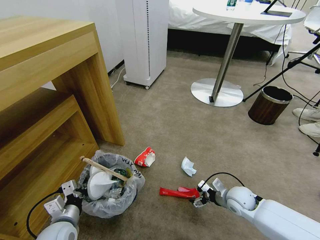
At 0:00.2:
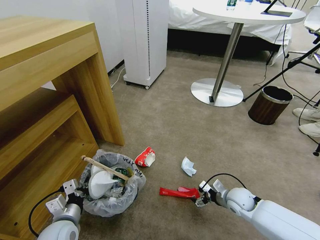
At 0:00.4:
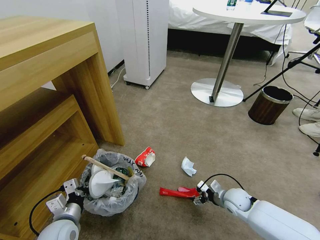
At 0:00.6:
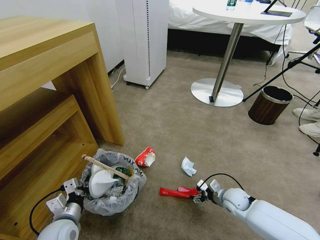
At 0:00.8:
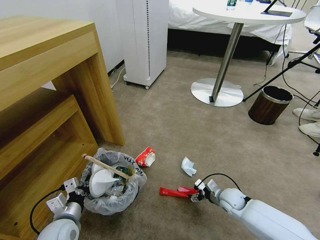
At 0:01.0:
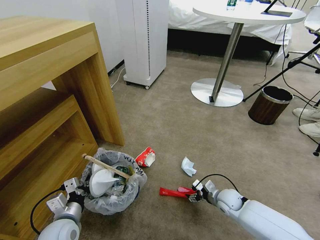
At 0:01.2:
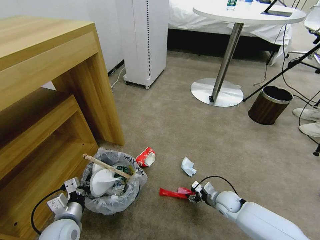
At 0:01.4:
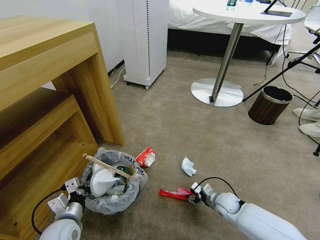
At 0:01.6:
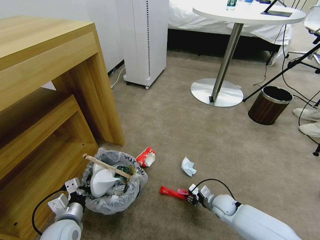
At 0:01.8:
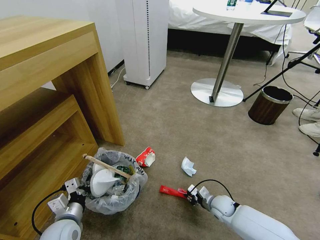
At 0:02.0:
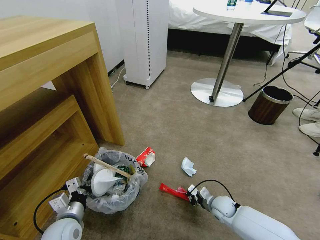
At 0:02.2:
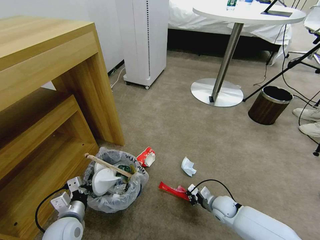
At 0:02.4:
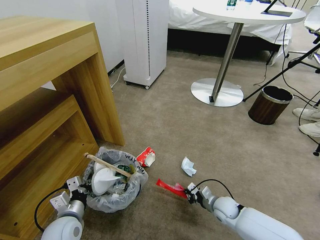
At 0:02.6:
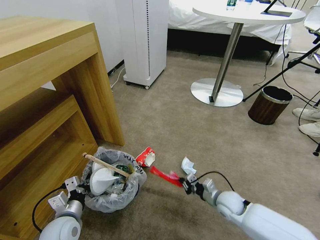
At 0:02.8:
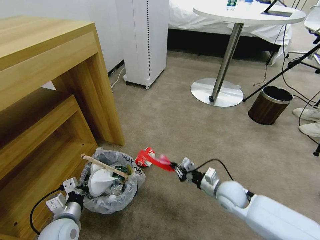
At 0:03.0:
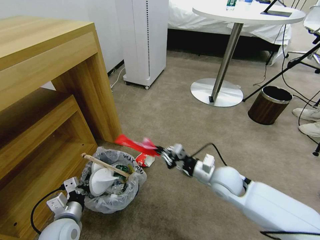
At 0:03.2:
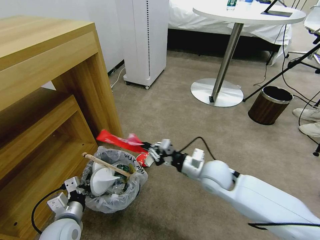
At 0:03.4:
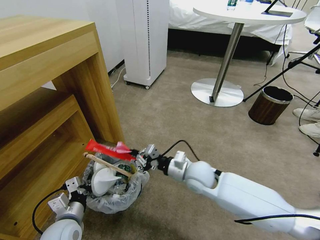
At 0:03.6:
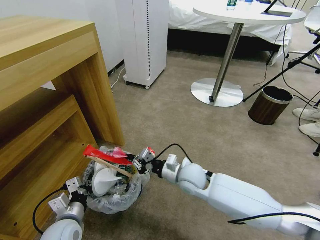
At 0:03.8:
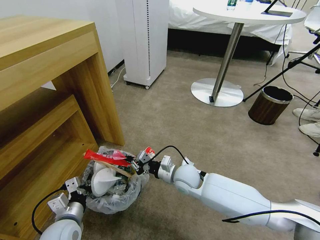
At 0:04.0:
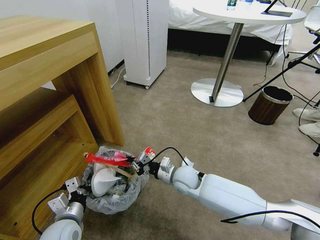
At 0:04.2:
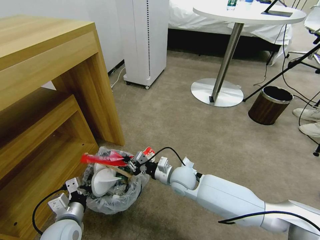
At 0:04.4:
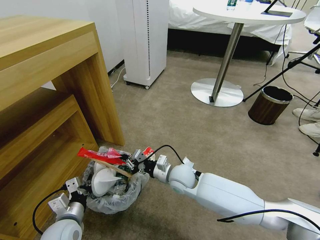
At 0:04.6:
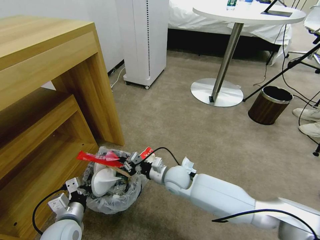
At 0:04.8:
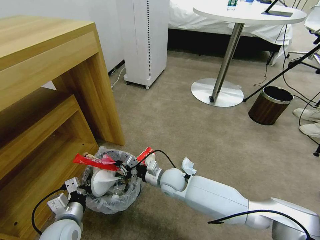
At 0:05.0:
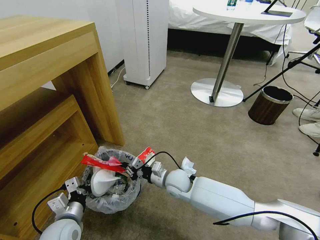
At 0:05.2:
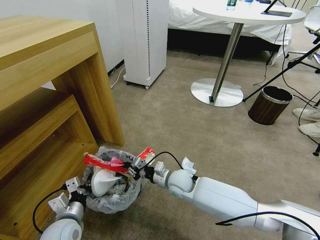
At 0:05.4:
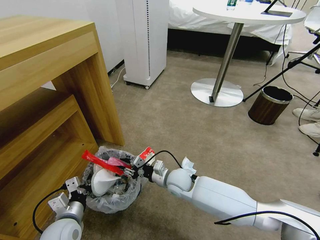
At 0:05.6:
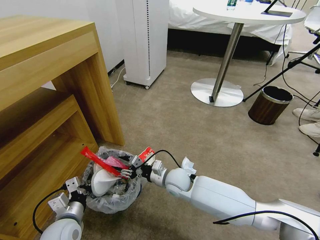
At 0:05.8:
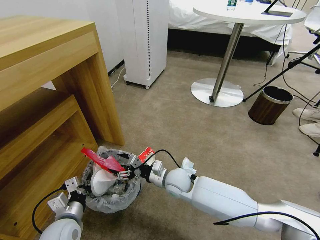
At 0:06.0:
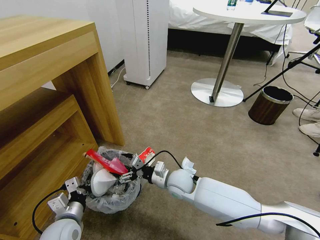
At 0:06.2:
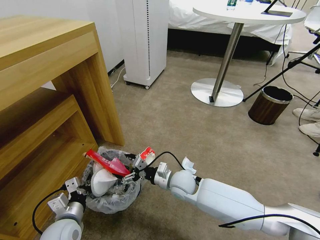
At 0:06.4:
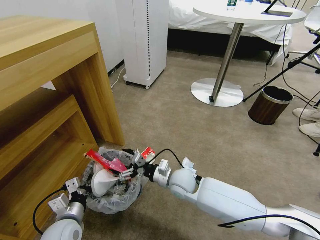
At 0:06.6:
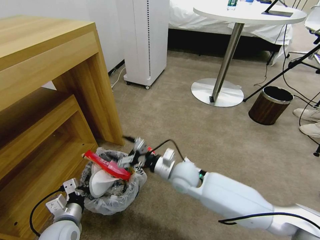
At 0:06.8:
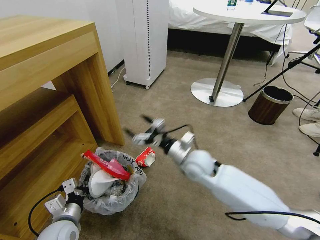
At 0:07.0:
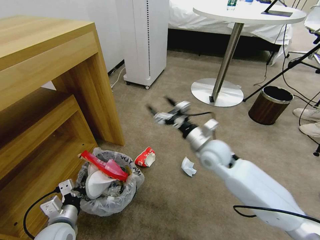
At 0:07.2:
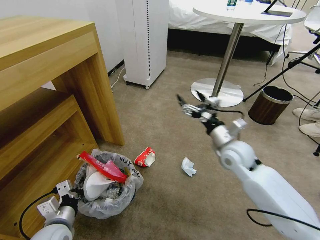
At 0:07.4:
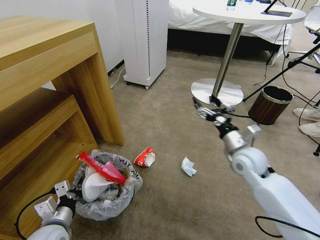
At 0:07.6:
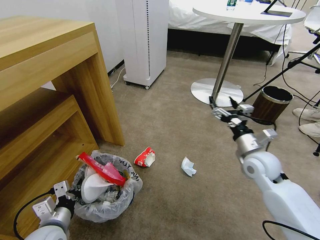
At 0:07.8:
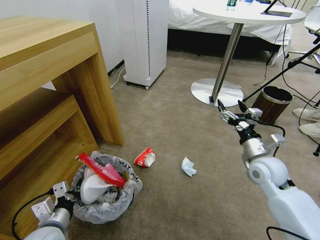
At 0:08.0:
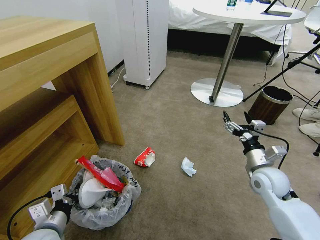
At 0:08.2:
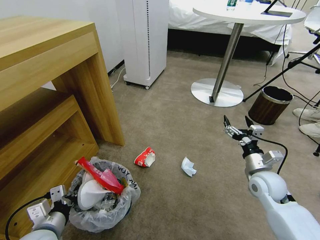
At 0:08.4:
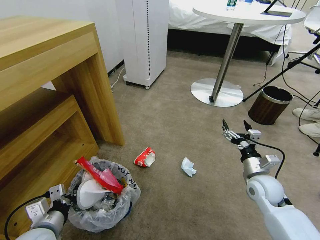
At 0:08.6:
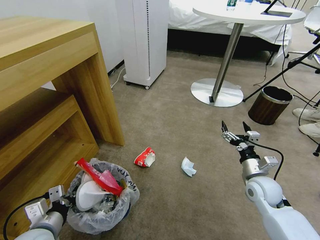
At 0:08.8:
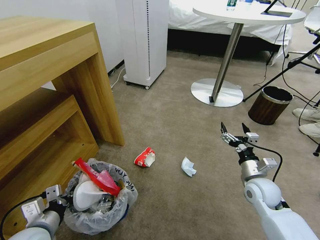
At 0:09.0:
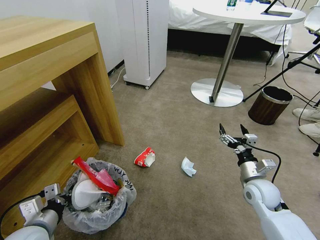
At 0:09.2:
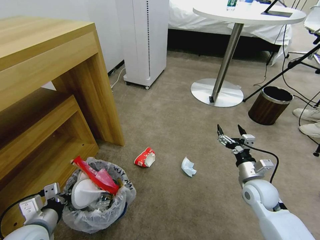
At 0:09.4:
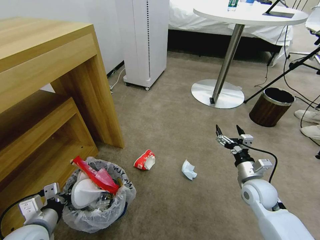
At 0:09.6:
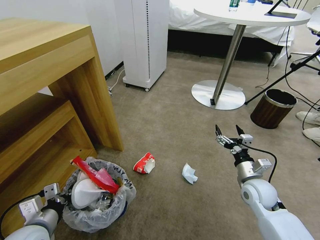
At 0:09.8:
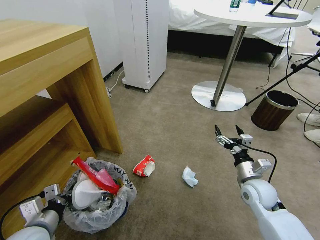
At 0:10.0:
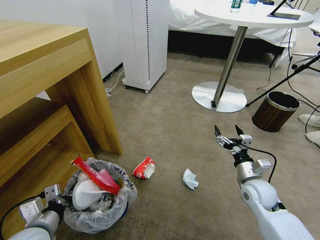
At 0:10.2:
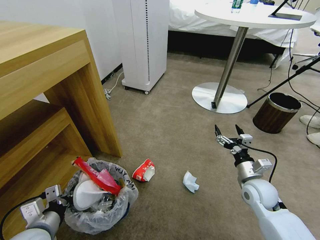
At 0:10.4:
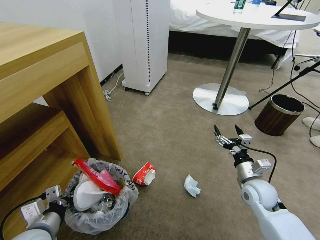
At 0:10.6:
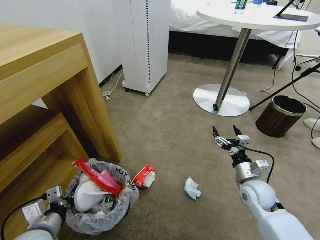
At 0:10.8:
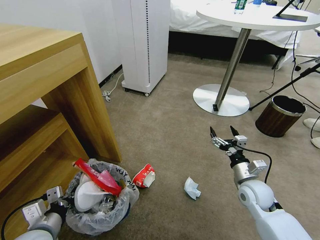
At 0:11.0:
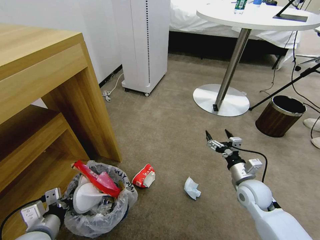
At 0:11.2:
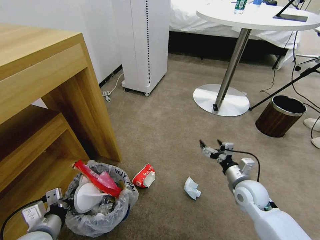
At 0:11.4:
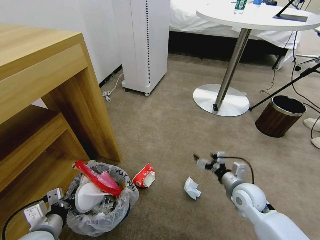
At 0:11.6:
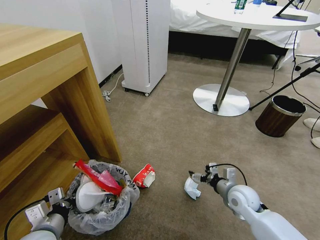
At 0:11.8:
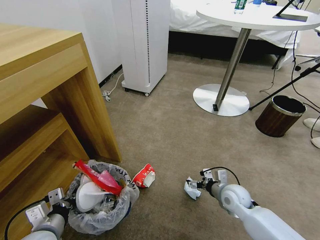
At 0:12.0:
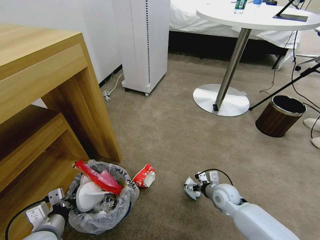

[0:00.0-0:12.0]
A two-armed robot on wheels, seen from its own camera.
Task of the whole recording: Pick up the trash bin and place the garbage on the floor into it.
0:00.0 to 0:01.6: The right gripper heads downward, covering about 10 cm, and closes its fingers.
0:01.6 to 0:03.0: The right gripper travels upward by about 20 cm, and closes.
0:03.0 to 0:04.4: The right gripper is displaced to the left by about 15 cm.
0:04.4 to 0:06.0: The right gripper opens.
0:06.0 to 0:07.6: The right gripper moves to the right and upward, about 25 cm.
0:07.6 to 0:09.0: The right gripper shifts some 10 cm downward and backward.
0:10.4 to 0:12.0: The right gripper heads downward and to the left, covering some 10 cm.

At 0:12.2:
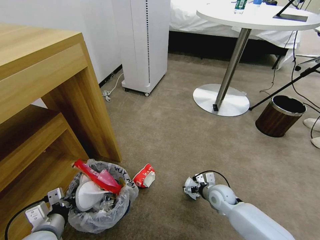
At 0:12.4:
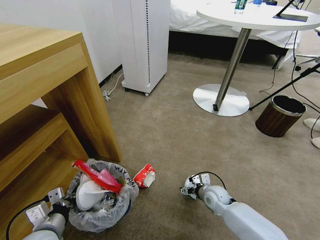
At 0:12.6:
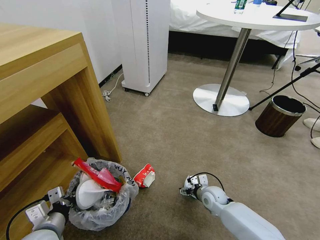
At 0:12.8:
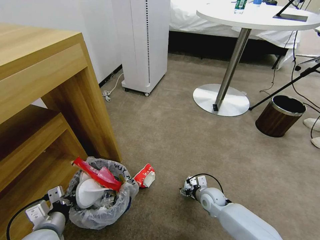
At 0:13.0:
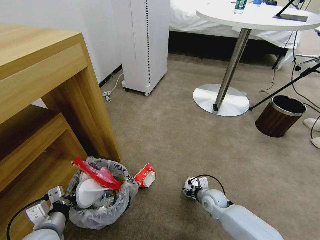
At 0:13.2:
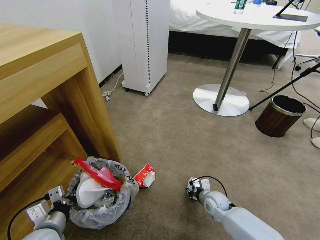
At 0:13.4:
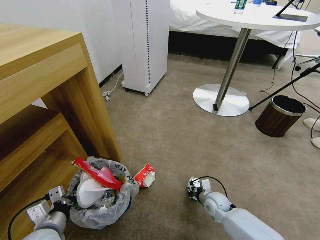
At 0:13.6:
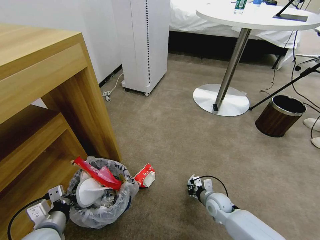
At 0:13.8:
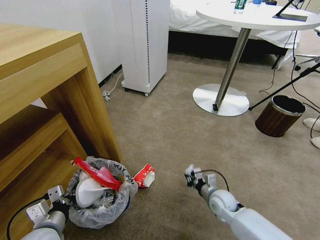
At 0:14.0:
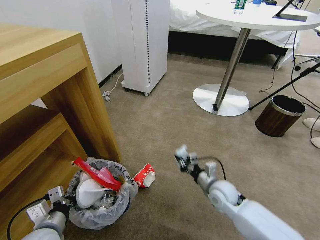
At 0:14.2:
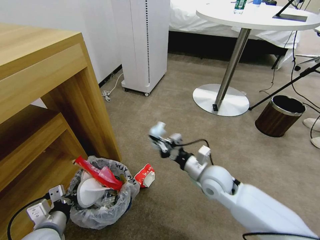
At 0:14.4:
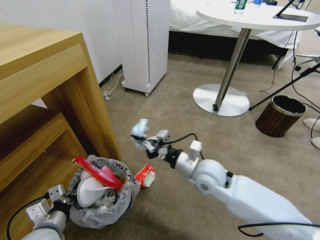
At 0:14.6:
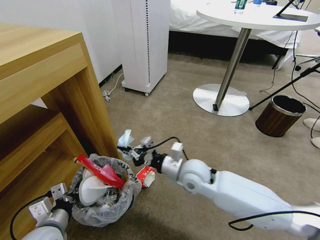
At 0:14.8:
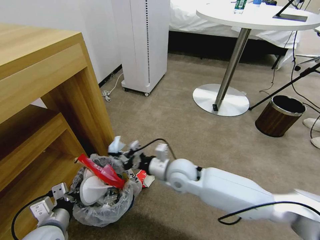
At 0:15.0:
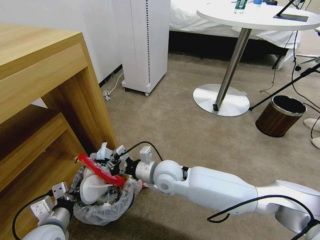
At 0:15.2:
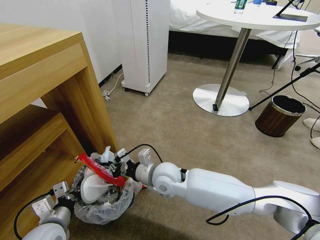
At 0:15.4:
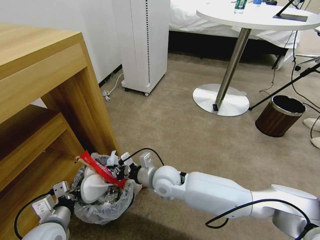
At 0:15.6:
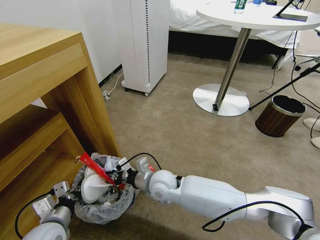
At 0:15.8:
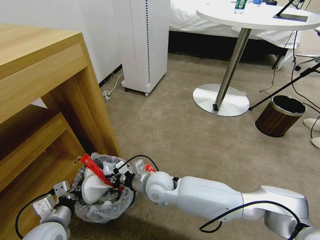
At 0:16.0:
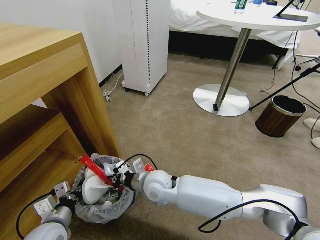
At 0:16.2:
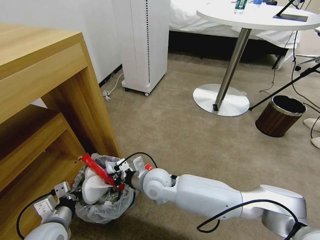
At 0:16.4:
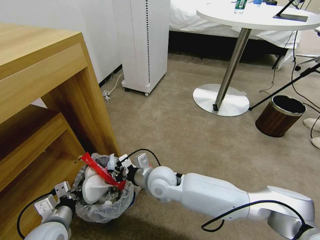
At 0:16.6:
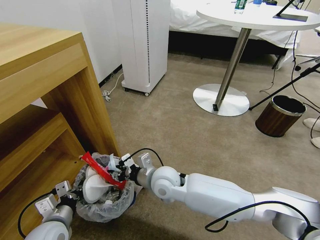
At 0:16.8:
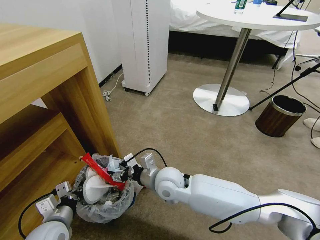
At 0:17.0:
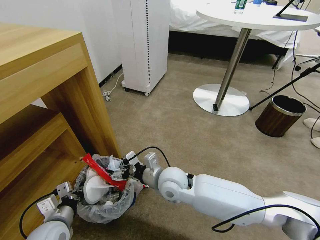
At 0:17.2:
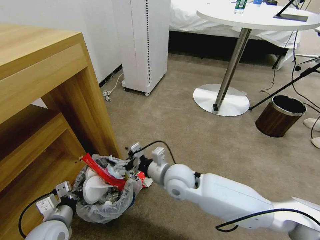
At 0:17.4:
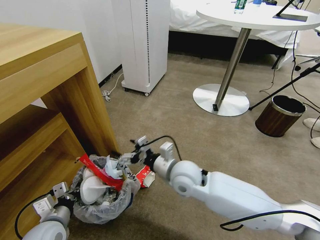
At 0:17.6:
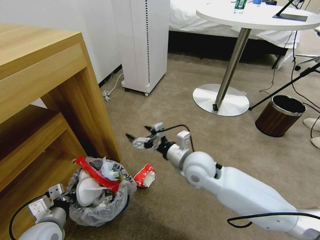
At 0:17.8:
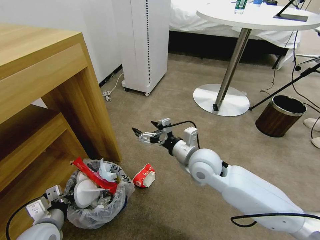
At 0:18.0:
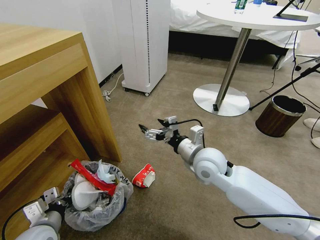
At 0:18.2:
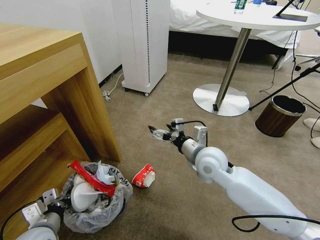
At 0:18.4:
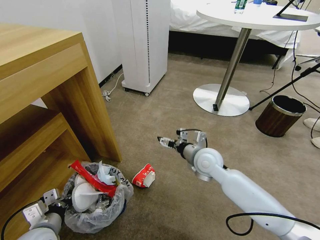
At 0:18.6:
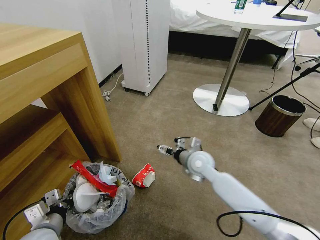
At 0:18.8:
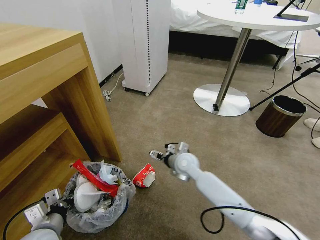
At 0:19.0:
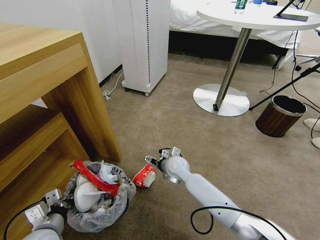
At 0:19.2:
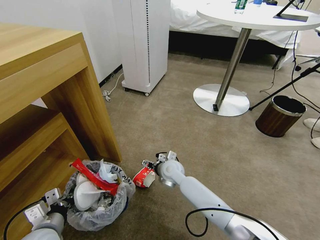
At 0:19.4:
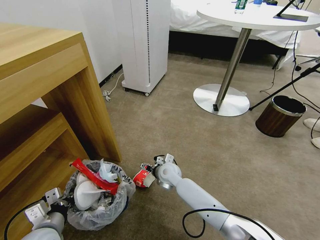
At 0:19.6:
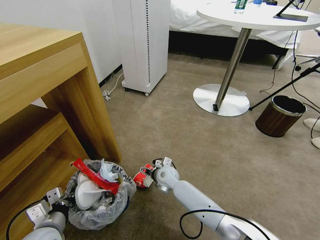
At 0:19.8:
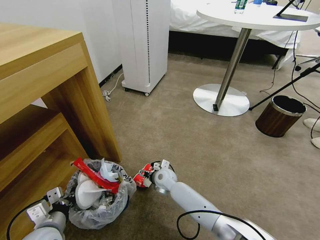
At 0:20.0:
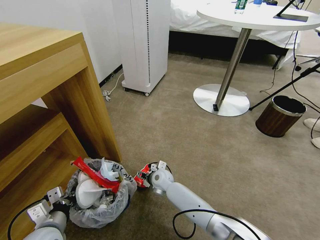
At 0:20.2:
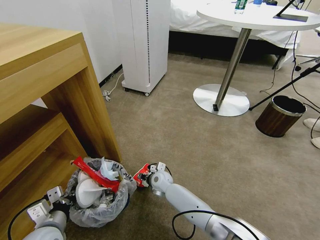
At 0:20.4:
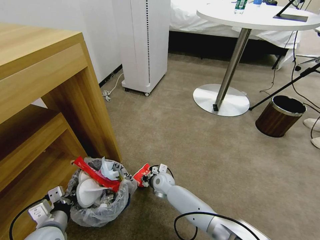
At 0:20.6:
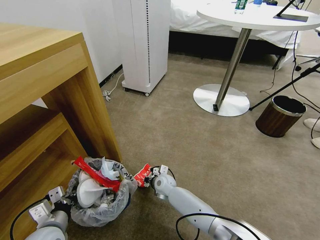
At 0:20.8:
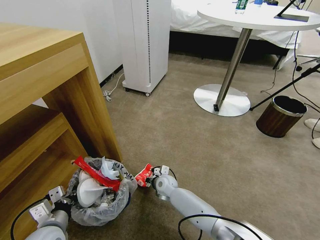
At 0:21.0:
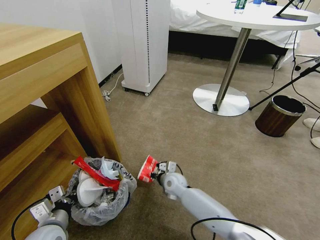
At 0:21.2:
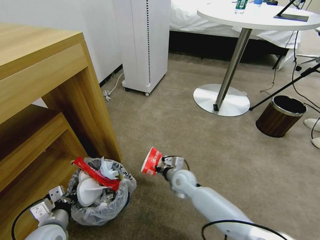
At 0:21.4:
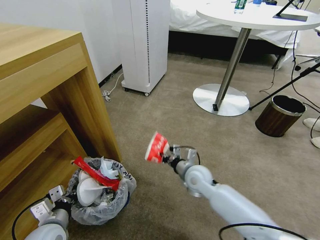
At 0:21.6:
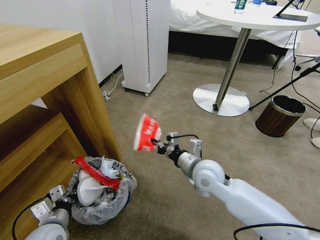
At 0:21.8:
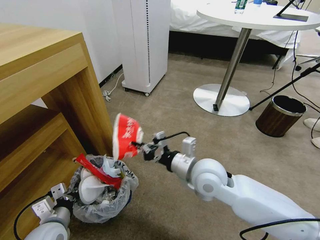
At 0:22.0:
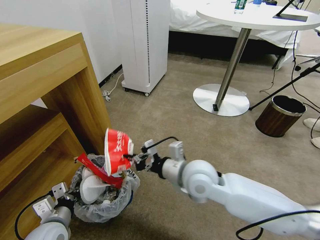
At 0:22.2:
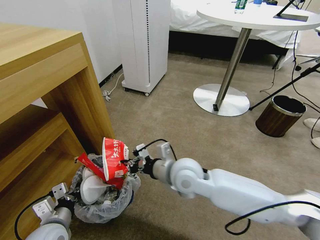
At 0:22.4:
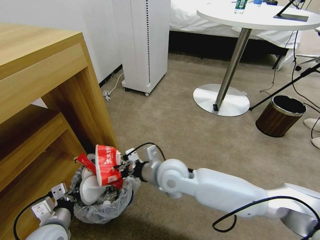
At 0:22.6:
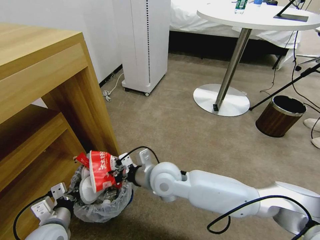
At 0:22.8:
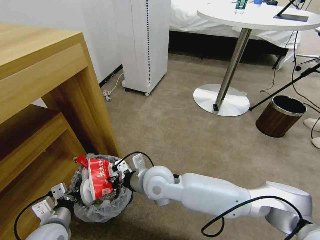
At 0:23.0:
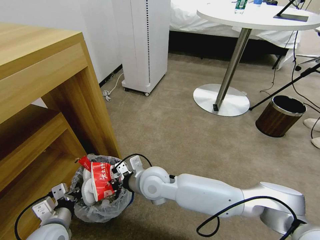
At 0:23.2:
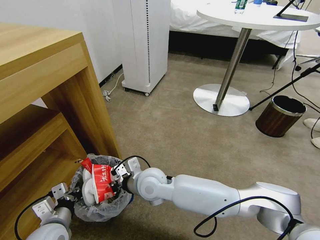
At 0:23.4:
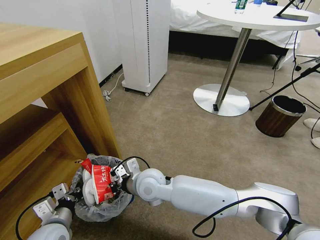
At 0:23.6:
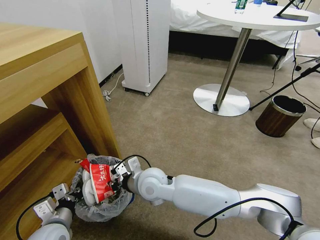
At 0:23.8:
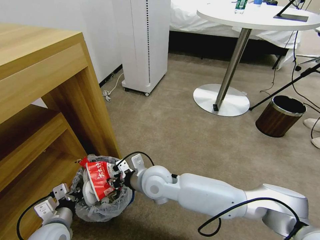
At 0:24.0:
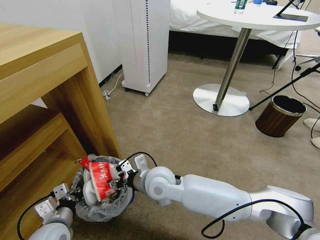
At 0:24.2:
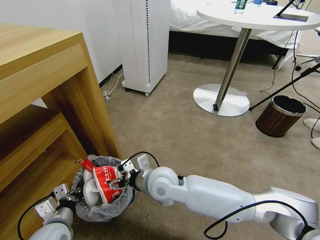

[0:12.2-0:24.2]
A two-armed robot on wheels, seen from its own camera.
Task of the whole recording: Pick up the trash bin and place the garbage on the floor into it.
0:12.2 to 0:13.8: The right gripper closes its fingers.
0:13.8 to 0:15.2: The right gripper is displaced to the left and upward by roughly 25 cm.
0:15.2 to 0:16.6: The right gripper opens up.
0:16.6 to 0:18.2: The right gripper shifts roughly 15 cm to the right and upward, and opens its fingers.
0:18.2 to 0:19.8: The right gripper is displaced downward and to the left by roughly 25 cm.
0:19.8 to 0:21.2: The right gripper goes about 5 cm to the right, and closes up.
0:21.2 to 0:22.6: The right gripper is displaced upward, to the left and backward by some 20 cm.
0:22.6 to 0:24.2: The right gripper opens up.
